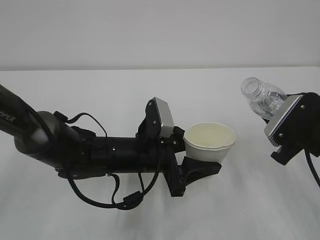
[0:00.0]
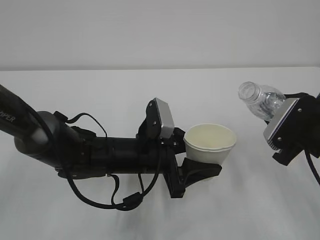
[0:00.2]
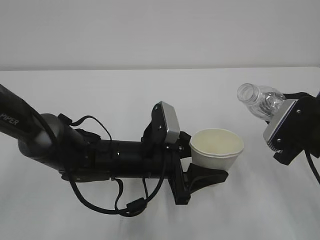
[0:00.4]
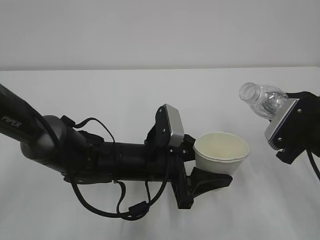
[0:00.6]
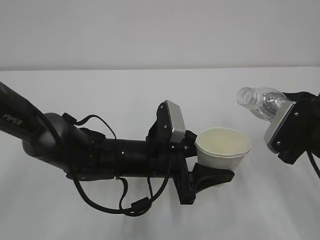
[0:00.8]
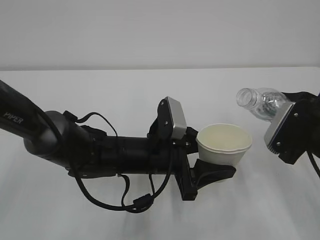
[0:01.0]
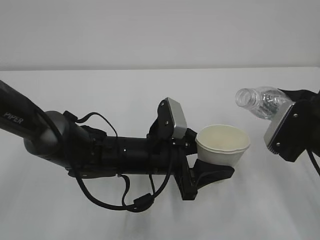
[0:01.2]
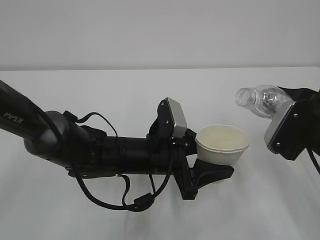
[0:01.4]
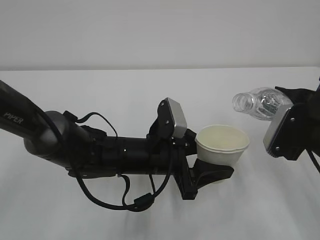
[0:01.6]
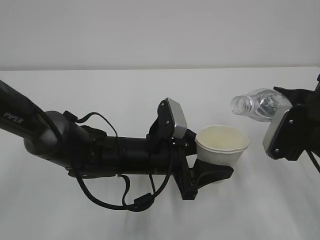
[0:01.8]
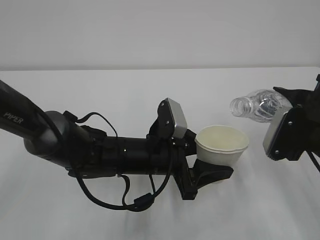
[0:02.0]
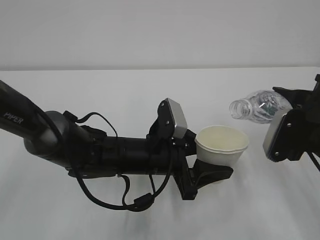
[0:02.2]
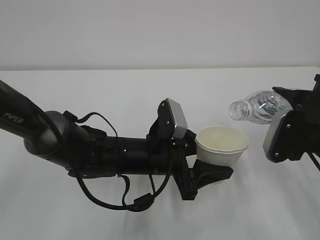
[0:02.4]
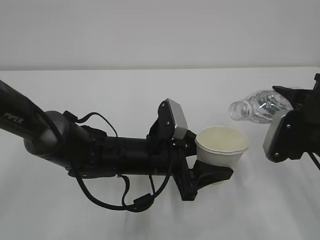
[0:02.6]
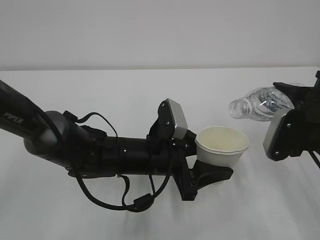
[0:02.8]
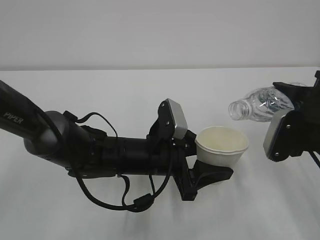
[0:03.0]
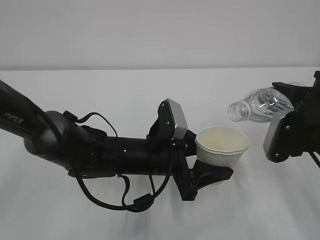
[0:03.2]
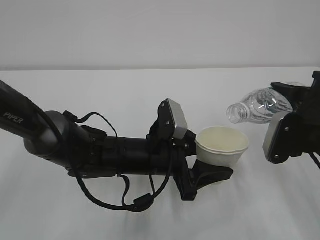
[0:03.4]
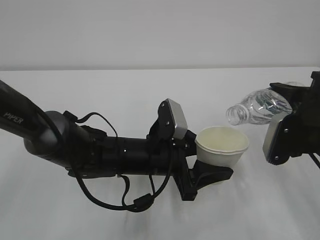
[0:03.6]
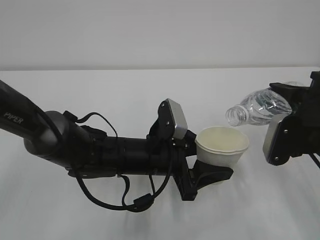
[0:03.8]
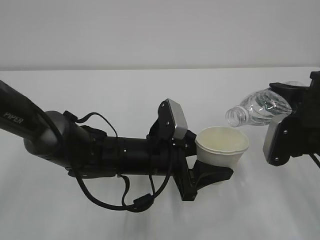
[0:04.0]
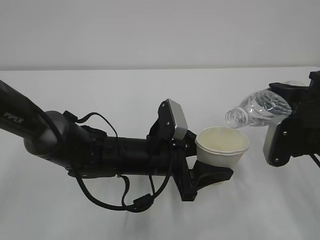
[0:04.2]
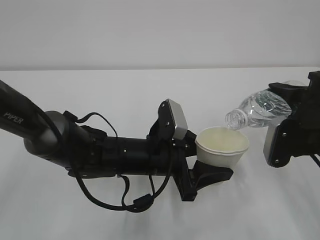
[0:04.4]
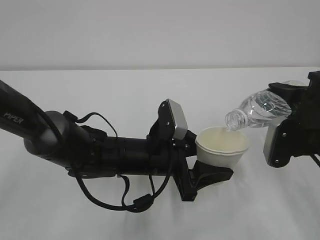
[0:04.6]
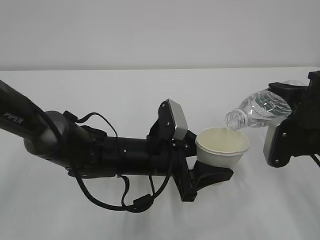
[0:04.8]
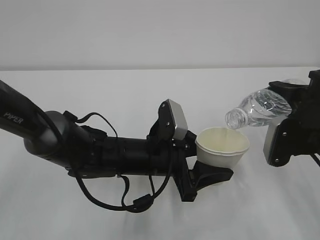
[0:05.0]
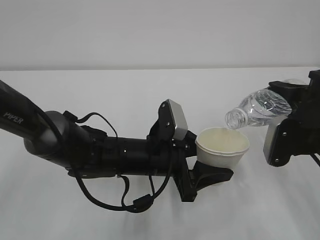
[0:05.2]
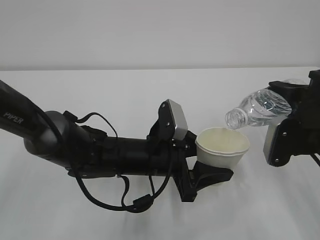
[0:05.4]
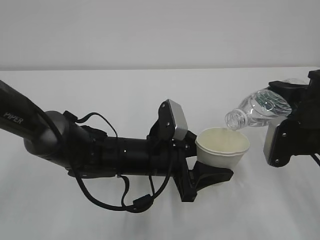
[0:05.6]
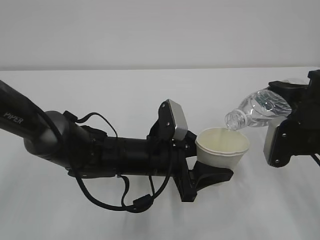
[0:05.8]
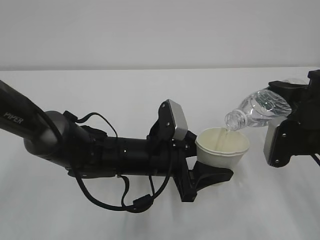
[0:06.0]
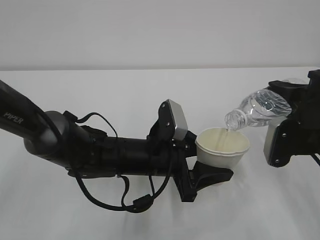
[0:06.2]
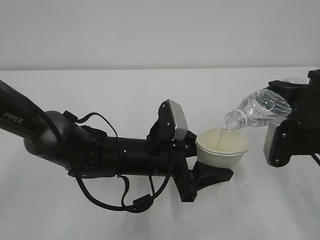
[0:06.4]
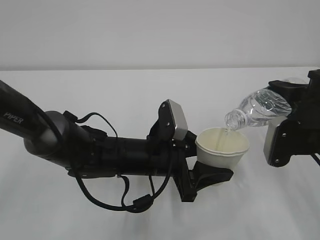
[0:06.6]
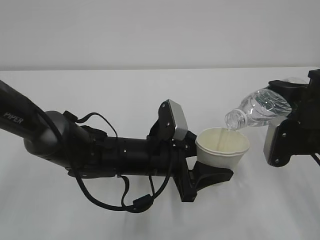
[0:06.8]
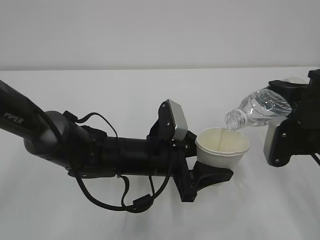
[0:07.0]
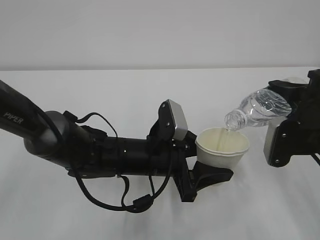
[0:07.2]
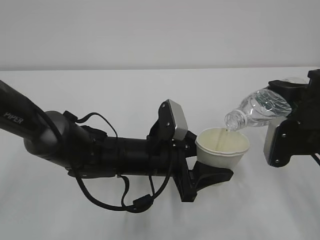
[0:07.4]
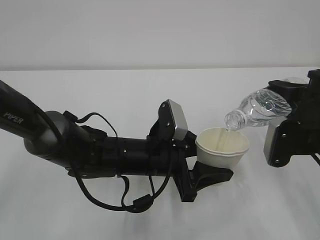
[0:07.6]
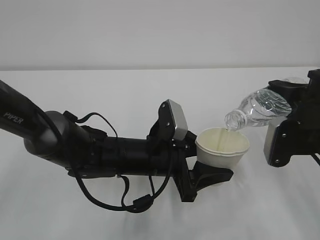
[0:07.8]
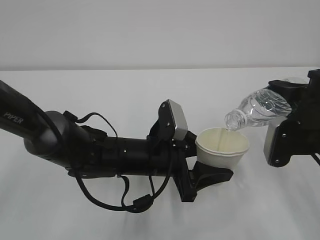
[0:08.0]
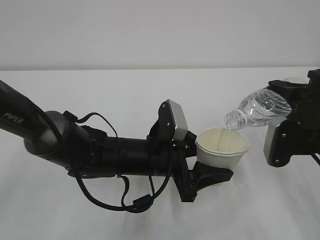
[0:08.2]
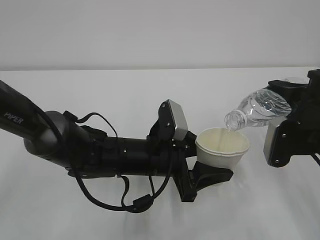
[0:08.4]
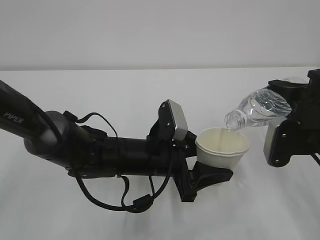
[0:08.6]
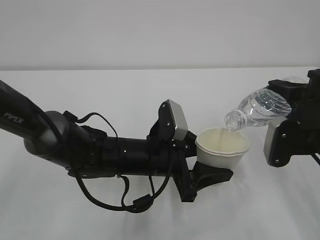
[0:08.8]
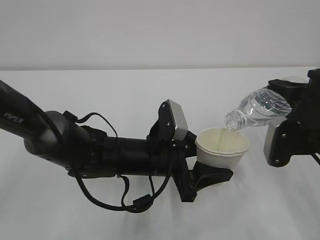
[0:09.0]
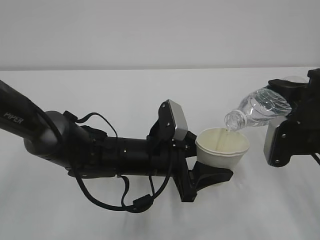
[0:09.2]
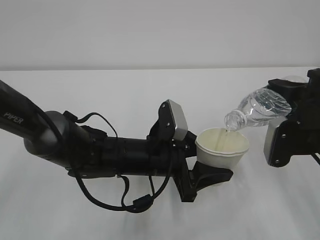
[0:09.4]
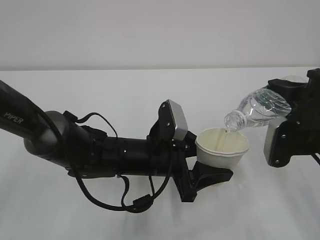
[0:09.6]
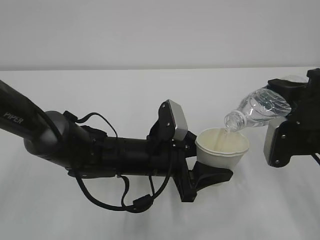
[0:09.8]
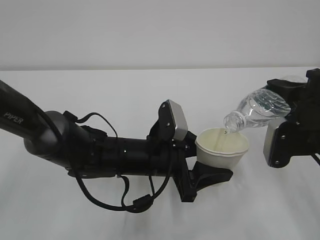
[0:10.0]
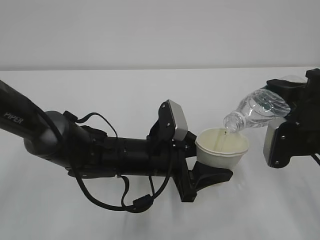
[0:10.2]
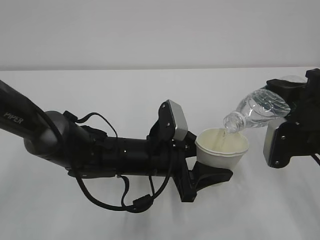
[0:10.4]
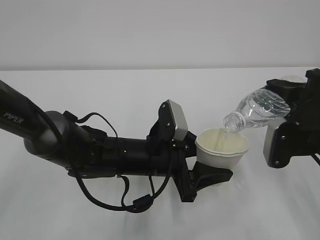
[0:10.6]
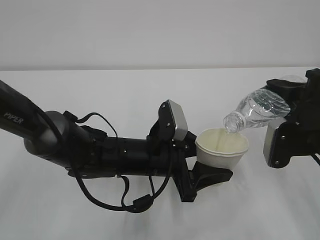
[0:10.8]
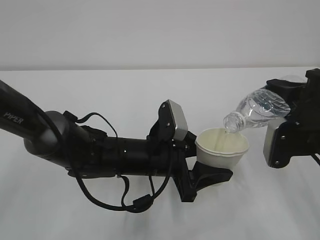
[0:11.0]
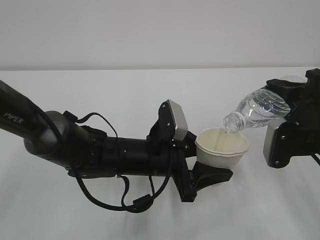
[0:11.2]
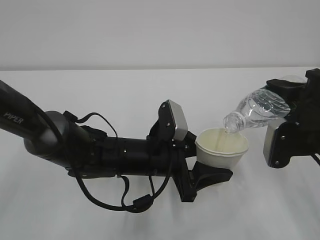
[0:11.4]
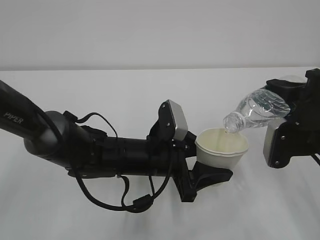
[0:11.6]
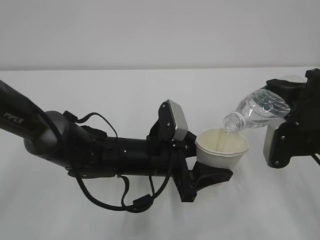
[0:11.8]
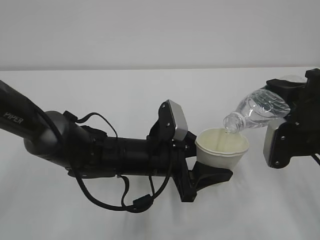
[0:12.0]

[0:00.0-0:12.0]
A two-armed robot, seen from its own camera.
0:00.0 to 0:01.6: The grippers stay close to where they were, moving slightly.
0:01.6 to 0:04.4: There are only small adjustments of the grippers.
0:04.4 to 0:09.0: Both grippers stay put.
0:09.0 to 0:12.0: Neither gripper changes place.

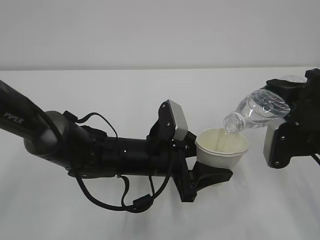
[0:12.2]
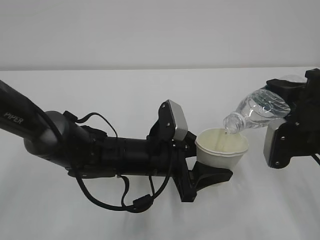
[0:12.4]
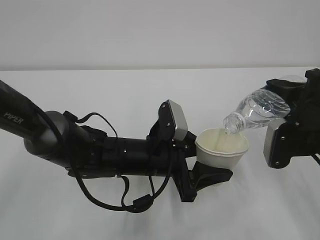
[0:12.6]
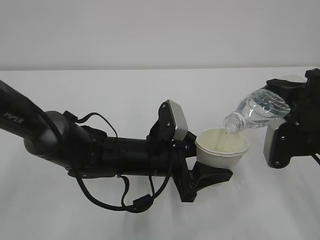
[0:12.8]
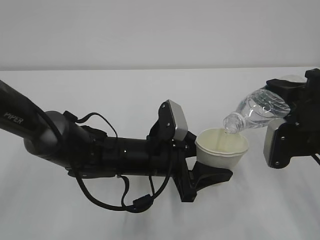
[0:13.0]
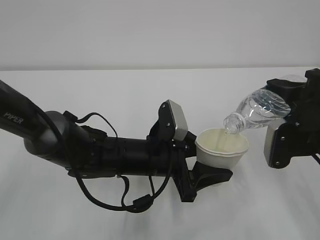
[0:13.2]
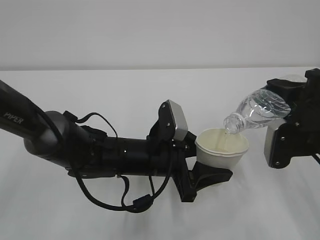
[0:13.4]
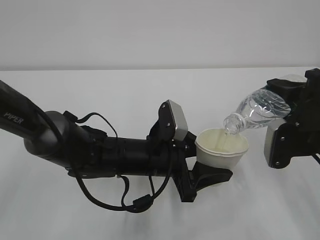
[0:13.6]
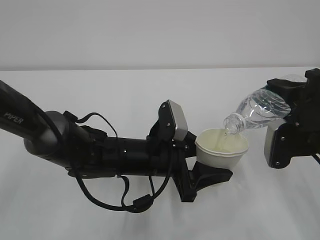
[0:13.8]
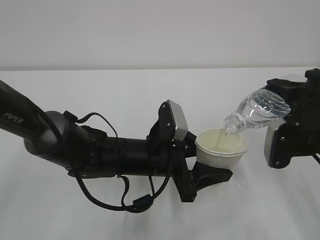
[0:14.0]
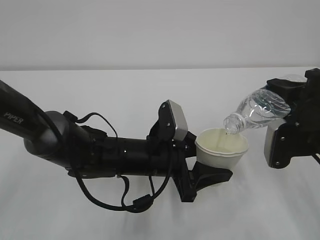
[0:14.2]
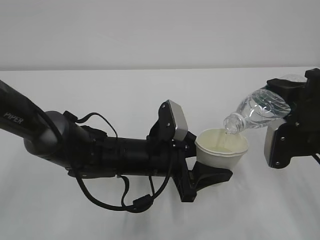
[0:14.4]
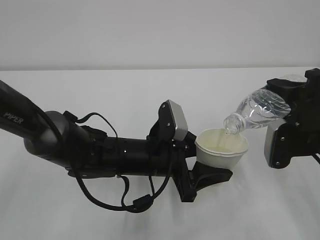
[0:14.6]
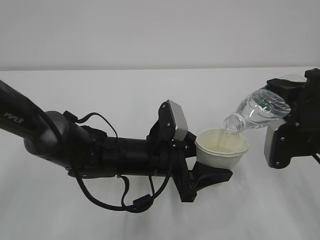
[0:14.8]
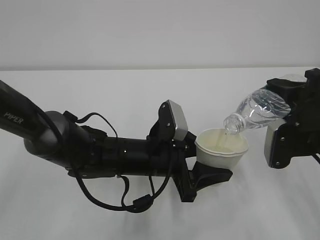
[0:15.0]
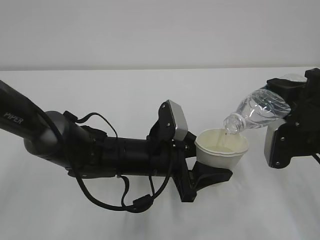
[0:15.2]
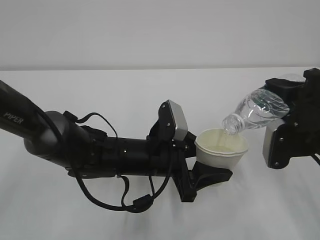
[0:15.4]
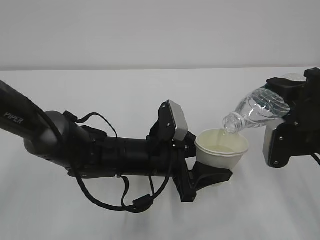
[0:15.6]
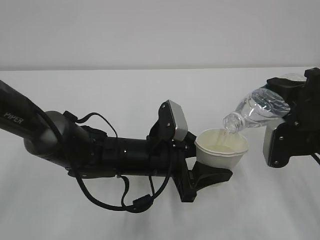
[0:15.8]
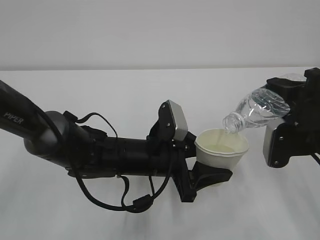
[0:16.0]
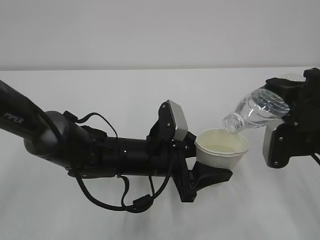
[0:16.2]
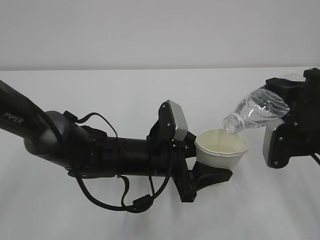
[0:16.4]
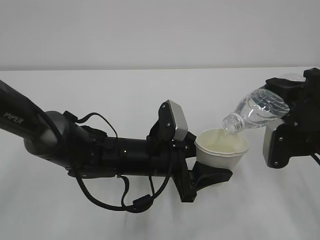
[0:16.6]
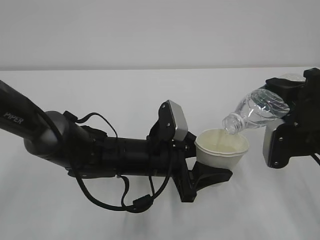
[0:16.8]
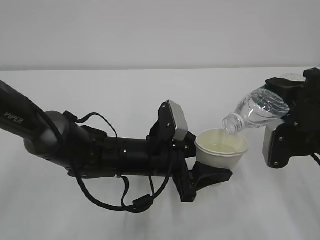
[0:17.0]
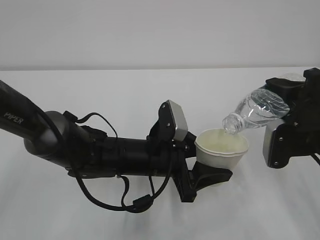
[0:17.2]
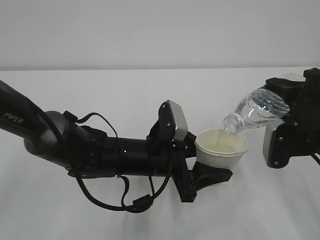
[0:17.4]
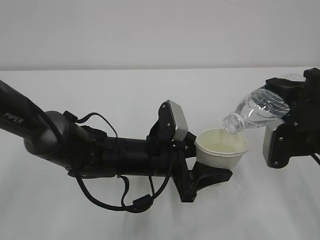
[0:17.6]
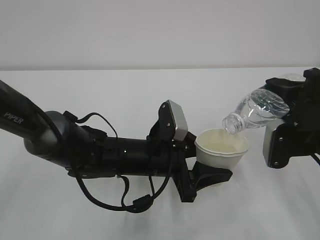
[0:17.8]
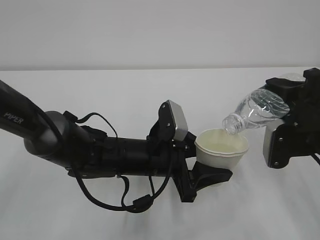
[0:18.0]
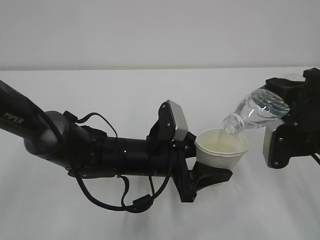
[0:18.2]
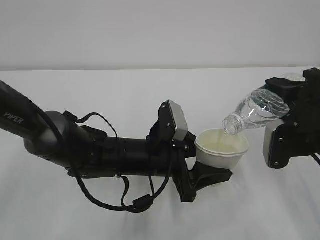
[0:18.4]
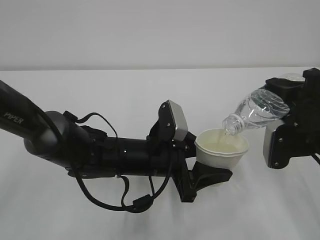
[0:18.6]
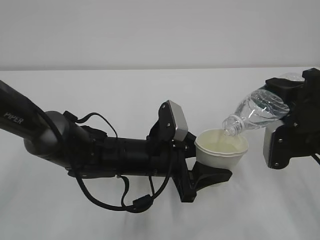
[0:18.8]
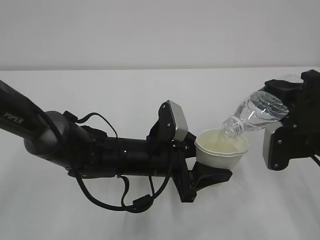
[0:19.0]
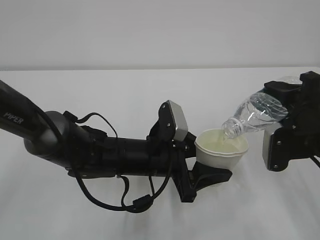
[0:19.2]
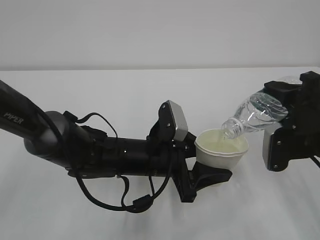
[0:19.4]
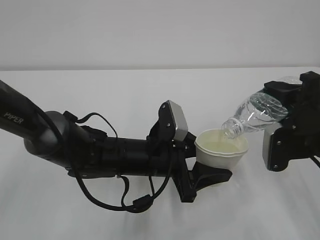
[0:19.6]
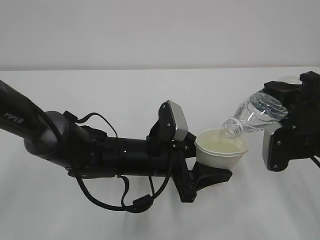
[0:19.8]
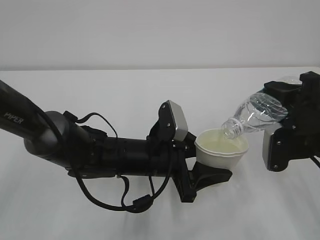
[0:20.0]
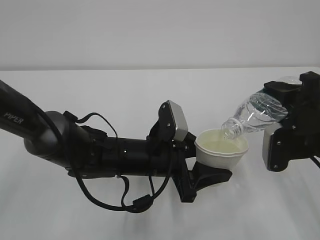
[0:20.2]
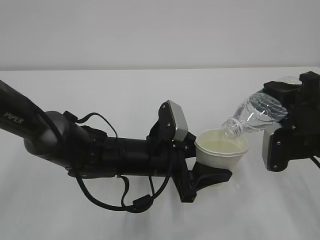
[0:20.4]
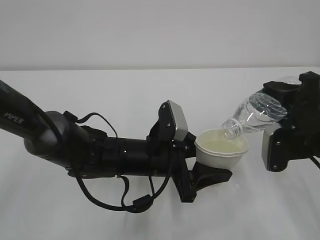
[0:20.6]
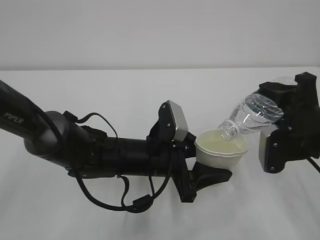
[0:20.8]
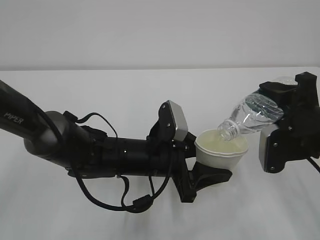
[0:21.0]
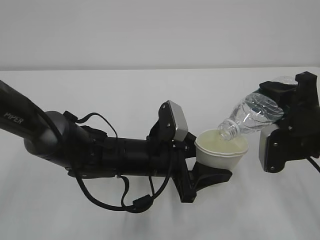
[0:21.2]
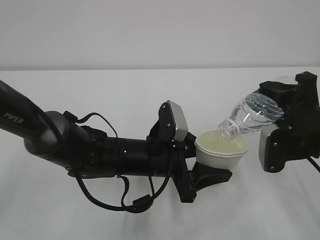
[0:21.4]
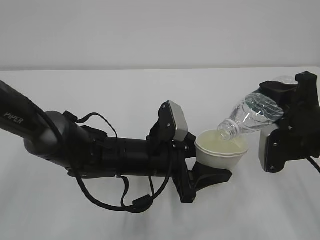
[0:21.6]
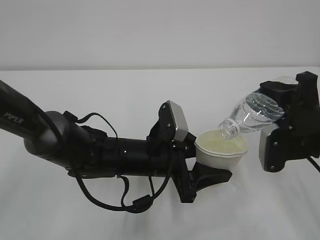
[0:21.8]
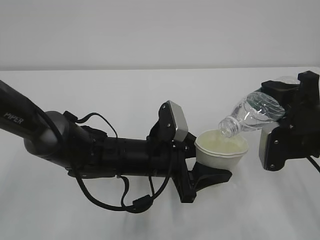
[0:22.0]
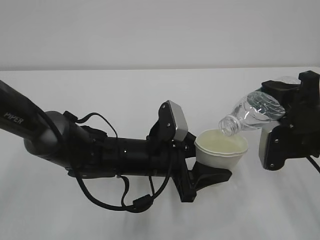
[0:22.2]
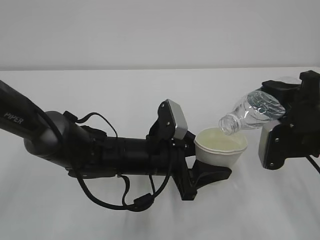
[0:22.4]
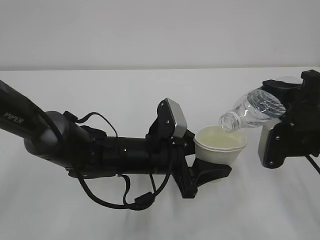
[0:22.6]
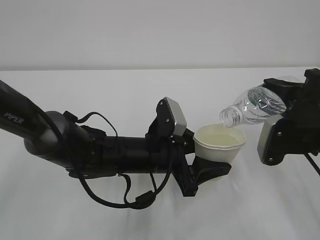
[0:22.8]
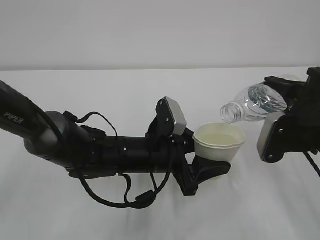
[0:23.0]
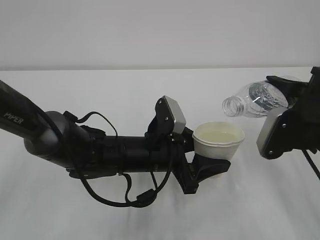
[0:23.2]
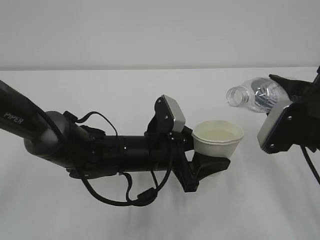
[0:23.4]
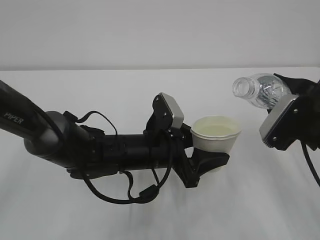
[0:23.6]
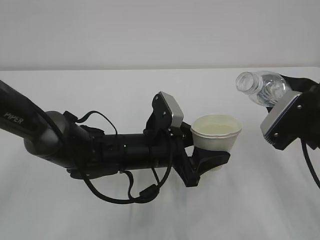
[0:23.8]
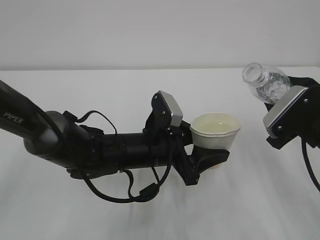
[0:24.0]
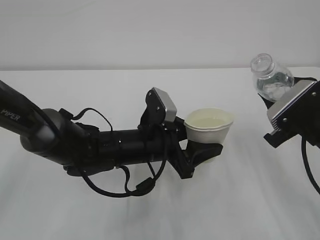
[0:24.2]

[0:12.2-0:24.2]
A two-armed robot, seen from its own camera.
0:12.2 to 0:21.2: Neither gripper changes place.
0:21.2 to 0:22.6: The grippers stay close to where they were, moving slightly.
